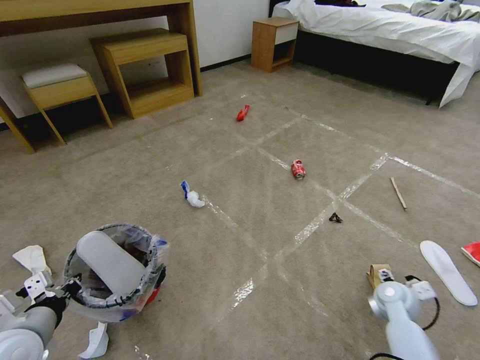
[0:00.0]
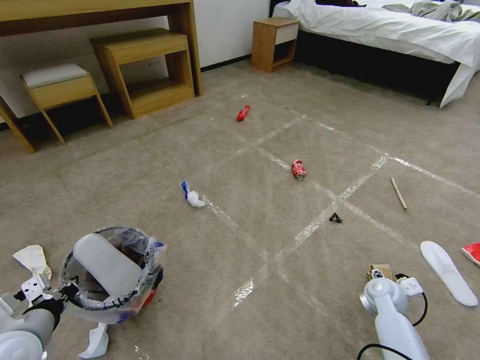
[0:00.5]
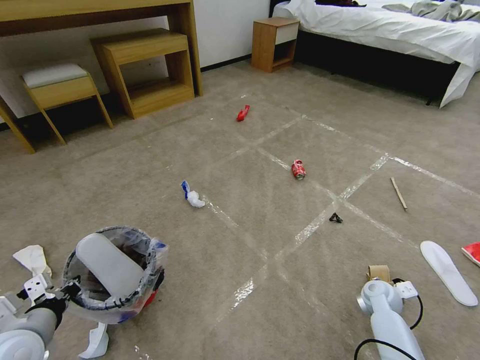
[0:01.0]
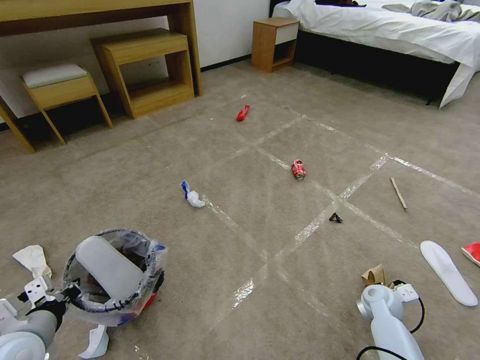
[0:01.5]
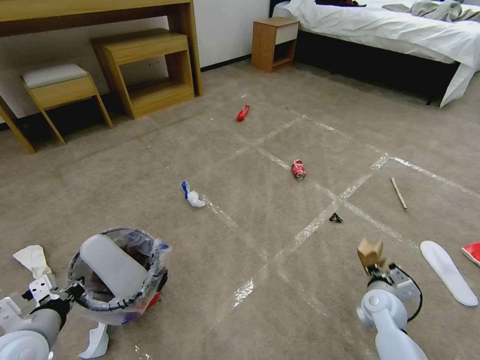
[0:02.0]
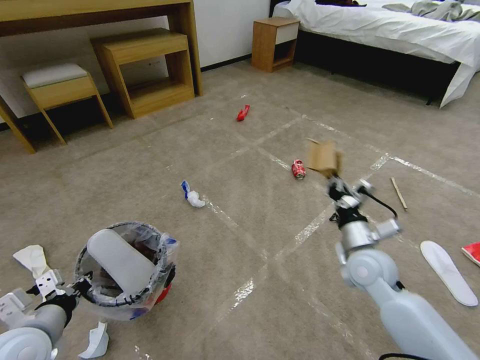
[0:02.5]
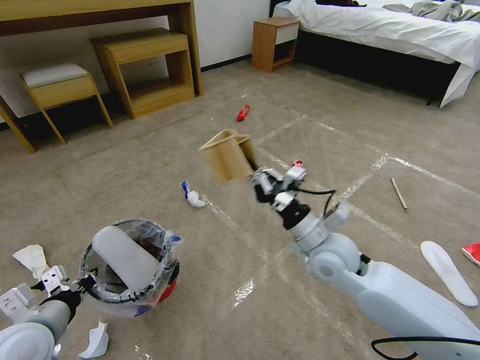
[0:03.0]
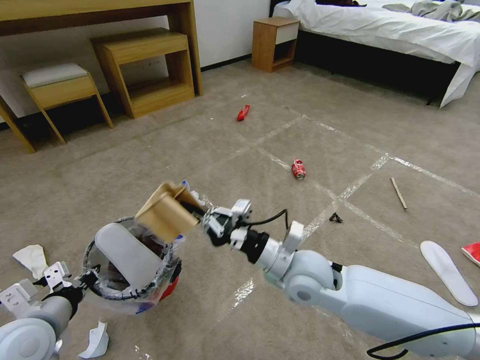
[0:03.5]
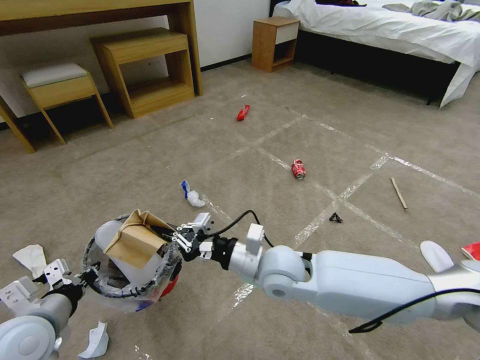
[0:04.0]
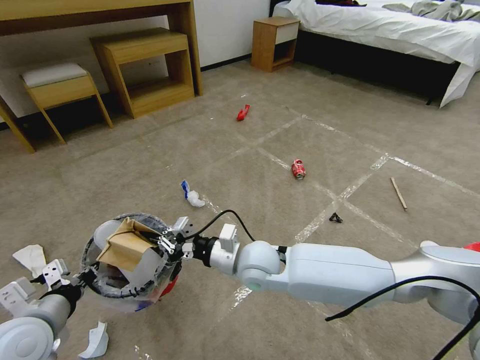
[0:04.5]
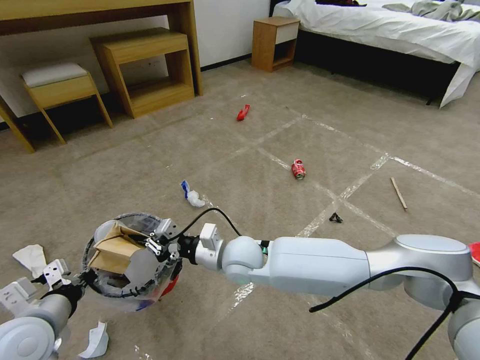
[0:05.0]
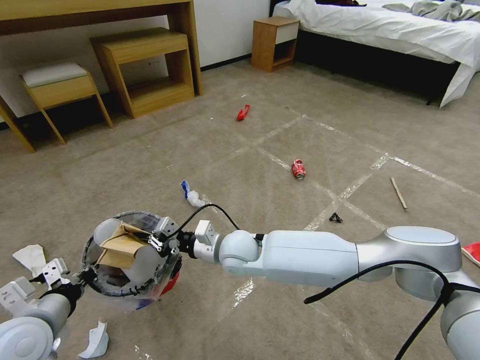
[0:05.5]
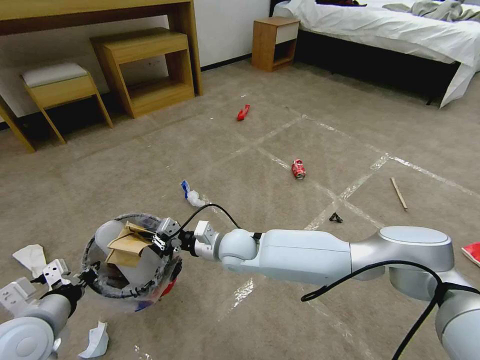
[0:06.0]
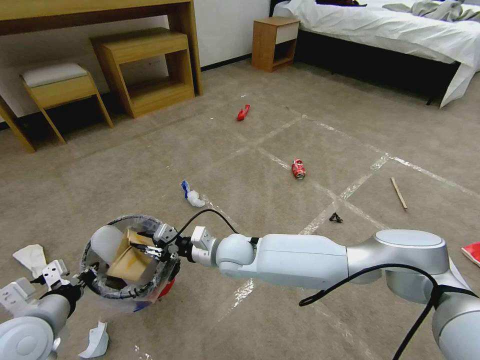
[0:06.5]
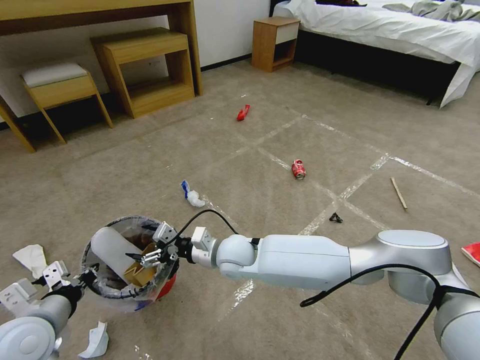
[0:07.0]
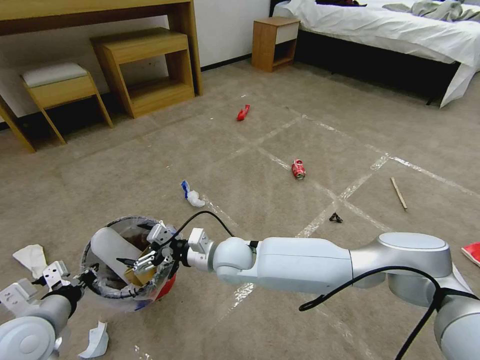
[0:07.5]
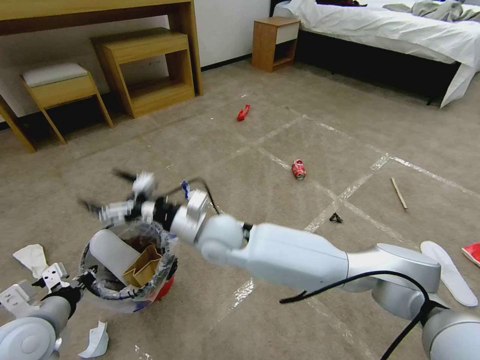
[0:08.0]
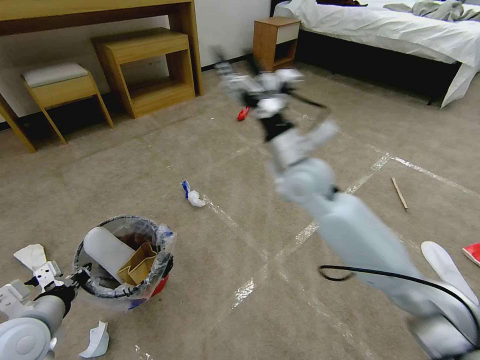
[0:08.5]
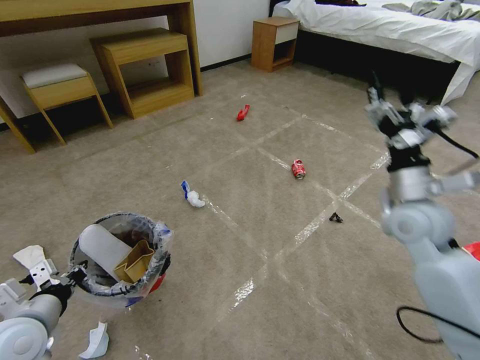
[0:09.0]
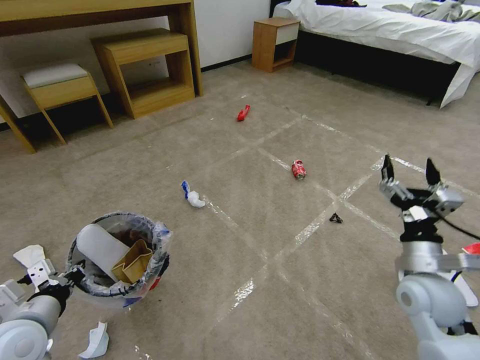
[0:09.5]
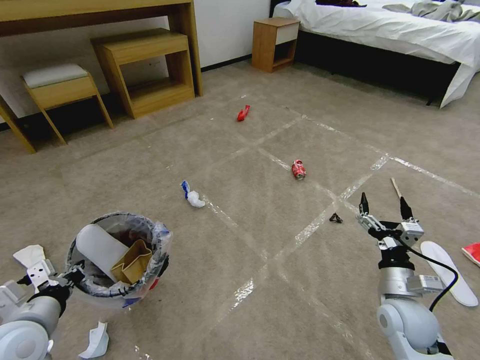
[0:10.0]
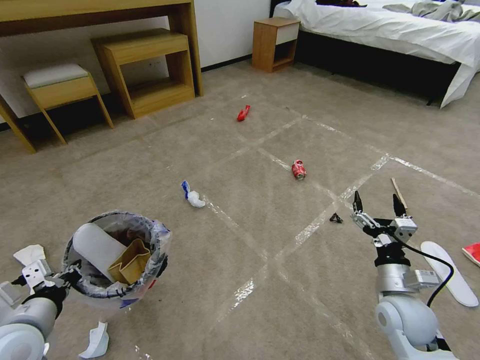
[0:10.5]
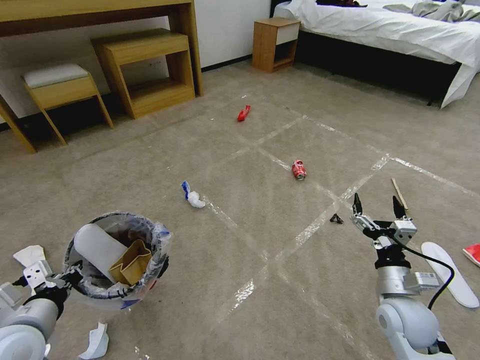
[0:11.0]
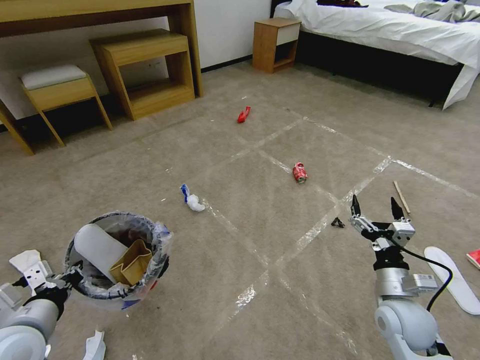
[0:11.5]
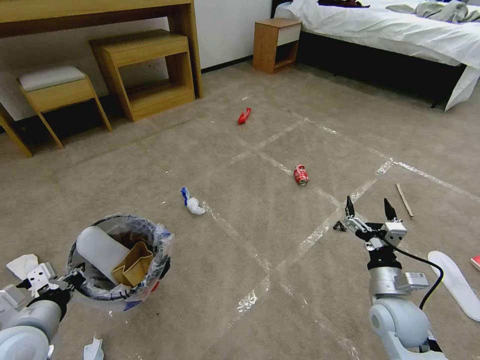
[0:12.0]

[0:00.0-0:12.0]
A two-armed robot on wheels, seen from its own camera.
Task of the whole recording: Pick up the trash bin and place the garbage on the floor into it.
0:00.0 to 0:02.0: The right gripper closes its fingers.
0:02.0 to 0:04.0: The right gripper goes roughly 35 cm to the left and upward.
0:04.0 to 0:06.0: The right gripper moves to the left, forward and downward, some 15 cm.
0:06.0 to 0:08.0: The right gripper moves upward, approximately 10 cm, and opens.
0:08.0 to 0:10.0: The right gripper travels to the right by approximately 40 cm.
0:10.0 to 0:12.0: The grippers move only a little.

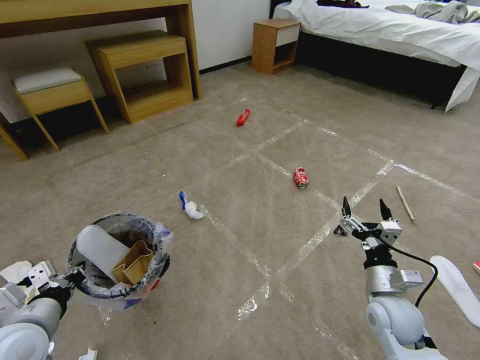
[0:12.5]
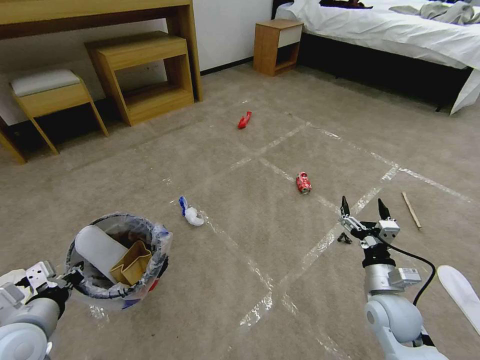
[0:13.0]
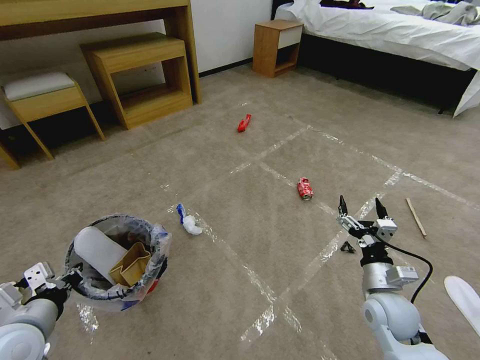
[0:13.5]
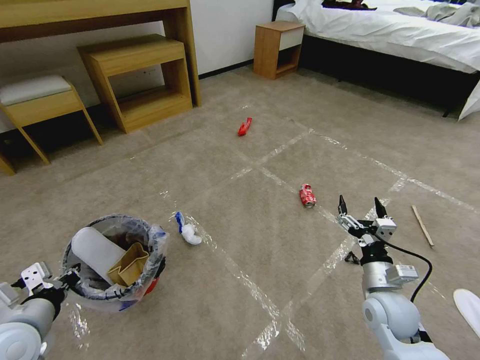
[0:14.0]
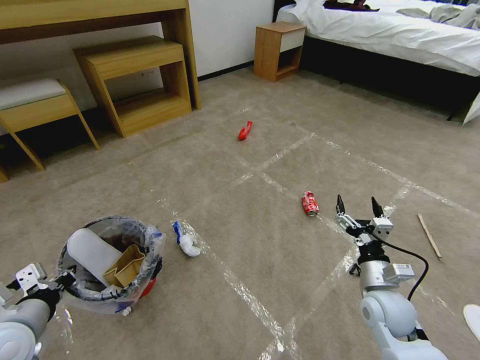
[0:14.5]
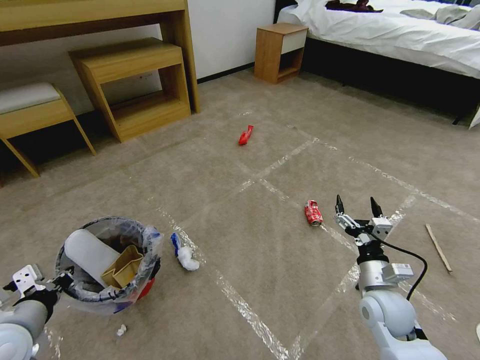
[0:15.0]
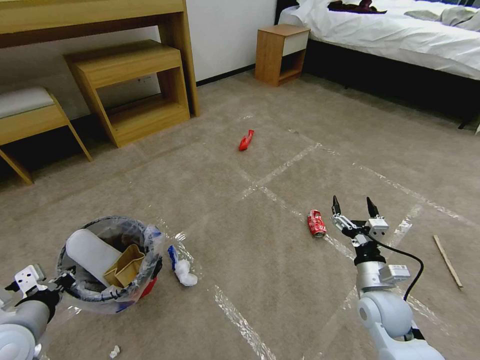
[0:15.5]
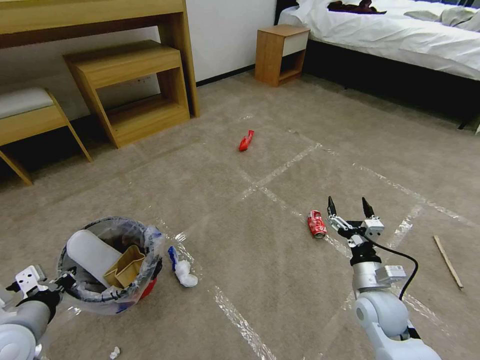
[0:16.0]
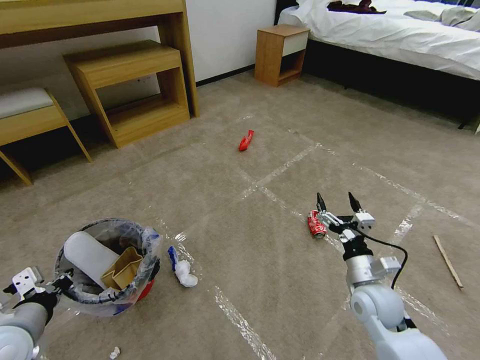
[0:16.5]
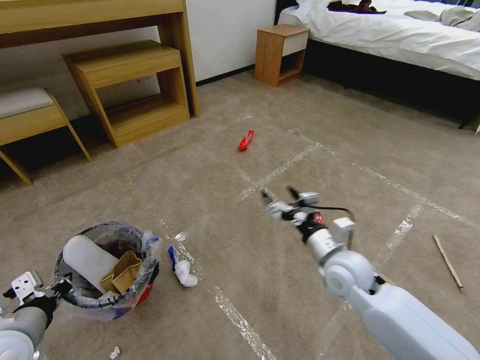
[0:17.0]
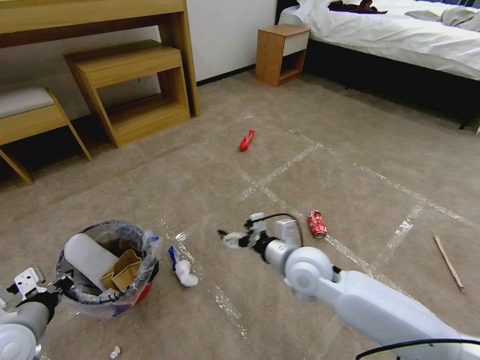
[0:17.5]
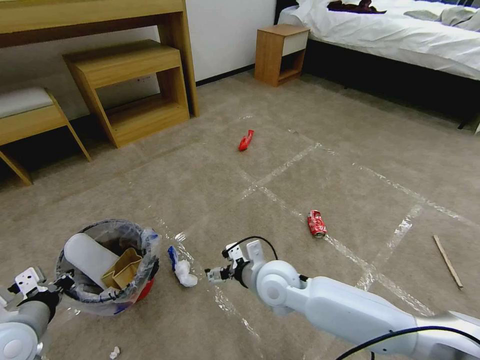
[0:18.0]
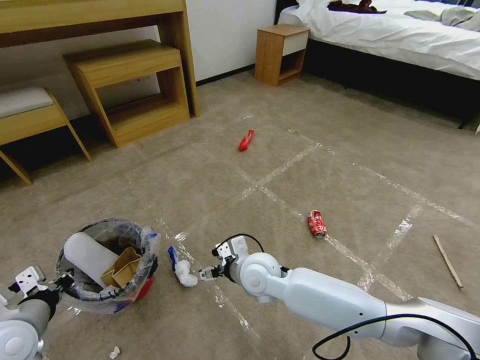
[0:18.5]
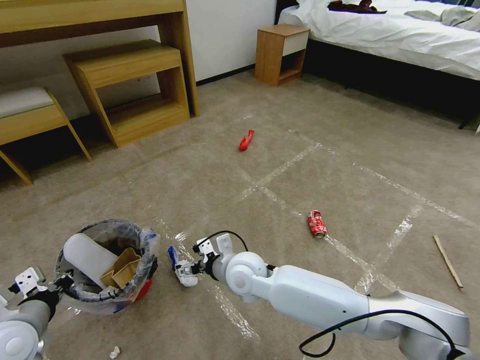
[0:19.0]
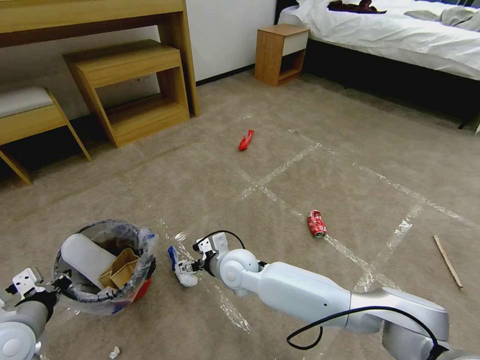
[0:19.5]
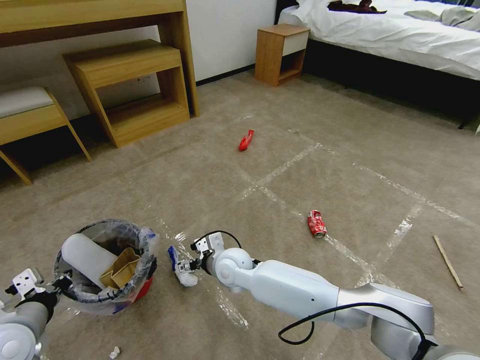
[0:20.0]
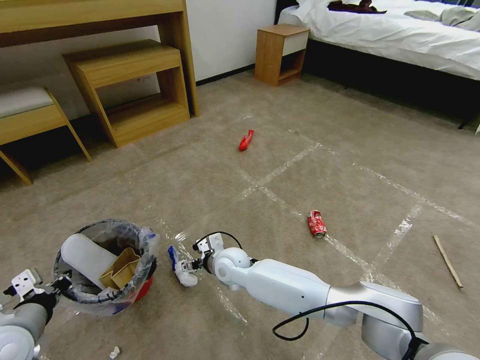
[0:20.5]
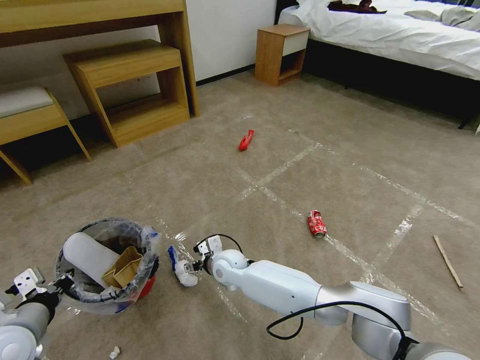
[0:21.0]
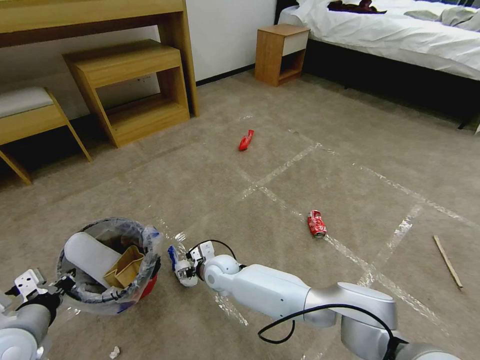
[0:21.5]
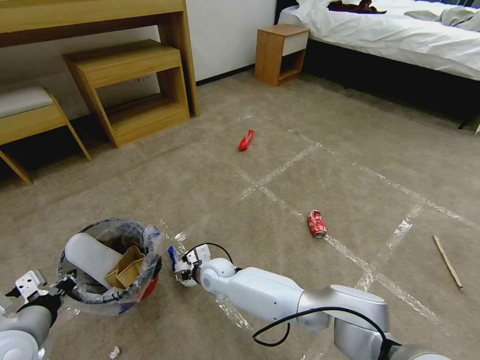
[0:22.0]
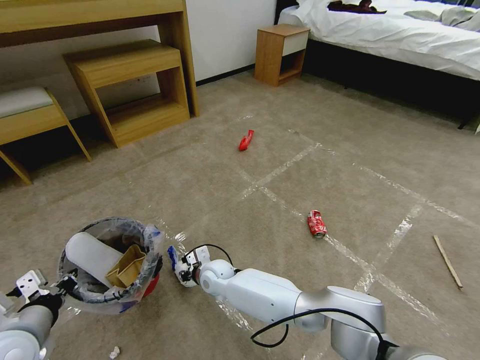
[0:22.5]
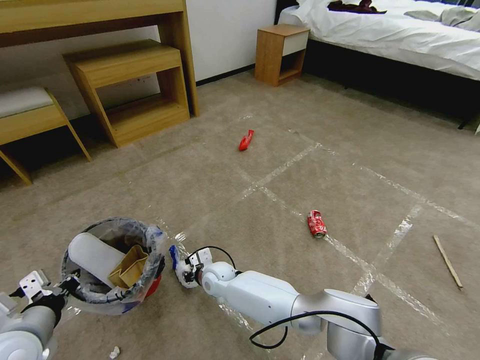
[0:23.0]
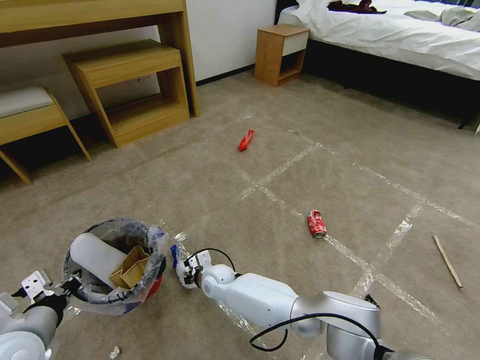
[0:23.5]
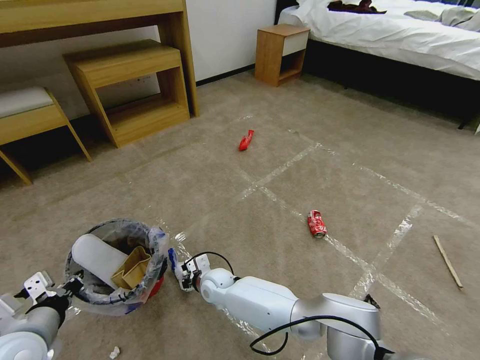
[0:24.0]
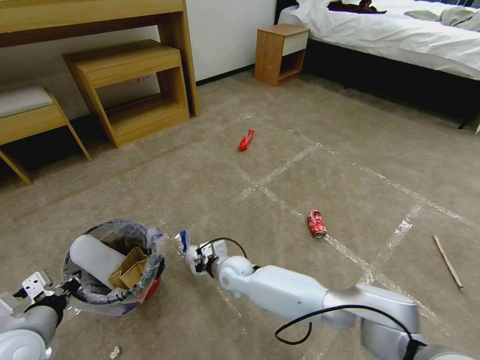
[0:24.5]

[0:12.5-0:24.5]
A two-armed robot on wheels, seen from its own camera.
Task of the whole recording: Pick up the trash bin and place the garbage on the floor into it.
0:16.5 to 0:18.5: The right gripper travels to the left by some 25 cm.
0:18.5 to 0:20.5: The right gripper moves to the left, downward and forward, roughly 10 cm.
0:20.5 to 0:22.5: The right gripper is displaced downward by approximately 5 cm, and closes.
0:22.5 to 0:24.5: The right gripper is displaced to the right by about 5 cm.

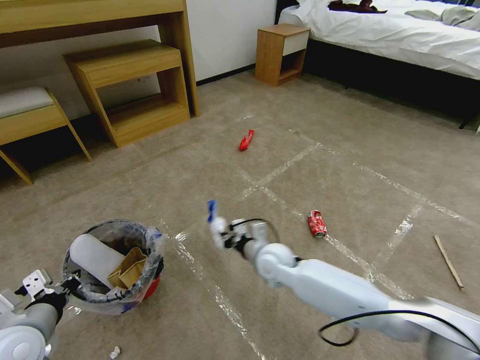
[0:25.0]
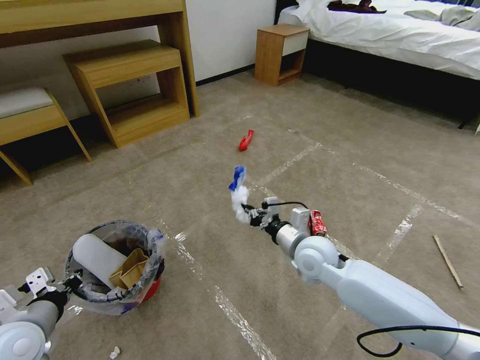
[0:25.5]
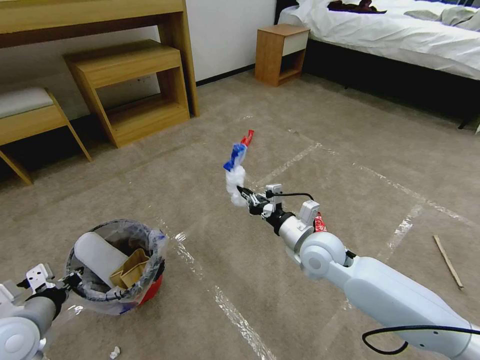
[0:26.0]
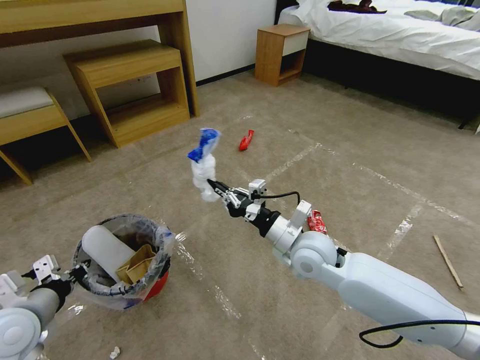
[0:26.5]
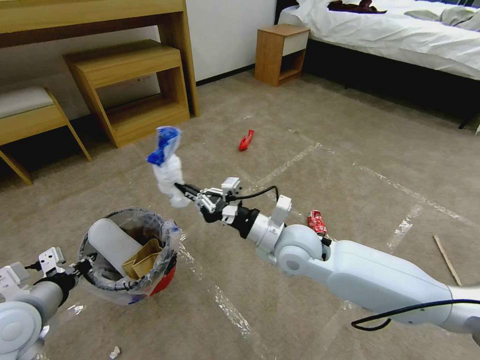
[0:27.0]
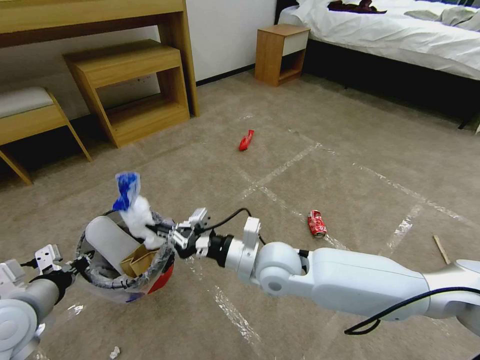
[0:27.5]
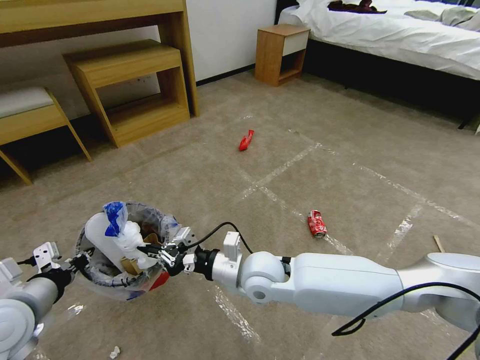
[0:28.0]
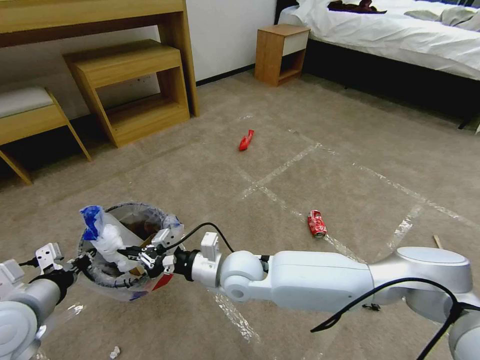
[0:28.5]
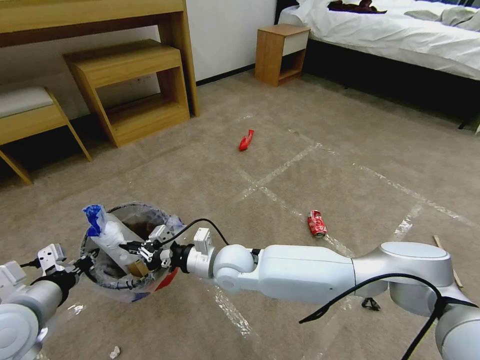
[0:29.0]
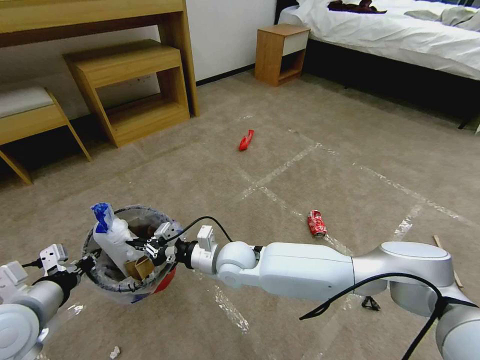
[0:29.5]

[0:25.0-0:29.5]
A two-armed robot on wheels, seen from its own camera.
Task of the whole recording: Pick up the trash bin and place the garbage on the floor into it.
0:25.0 to 0:27.0: The right gripper shifts approximately 15 cm upward.
0:27.0 to 0:29.5: The right gripper is displaced to the left and downward by roughly 15 cm.
